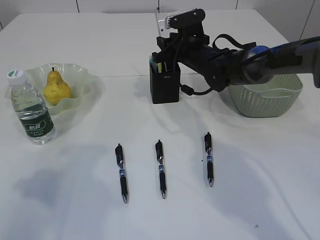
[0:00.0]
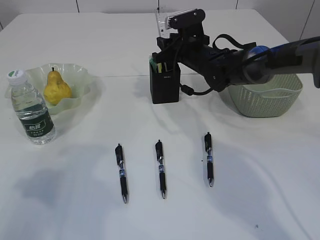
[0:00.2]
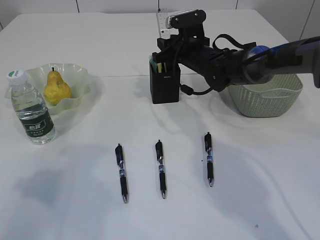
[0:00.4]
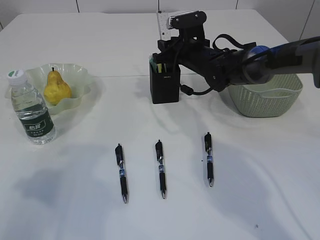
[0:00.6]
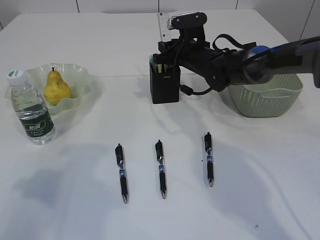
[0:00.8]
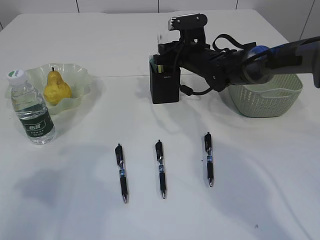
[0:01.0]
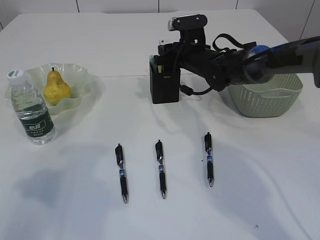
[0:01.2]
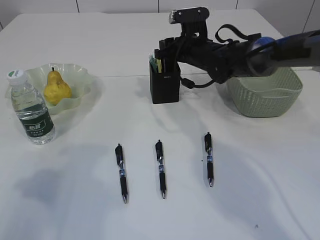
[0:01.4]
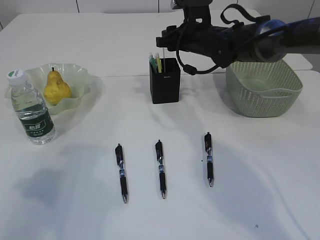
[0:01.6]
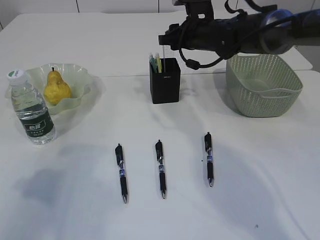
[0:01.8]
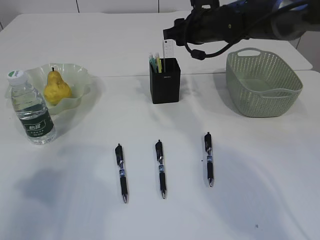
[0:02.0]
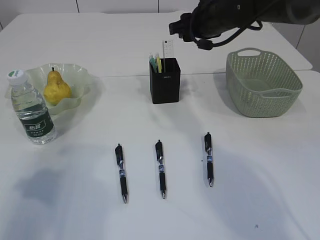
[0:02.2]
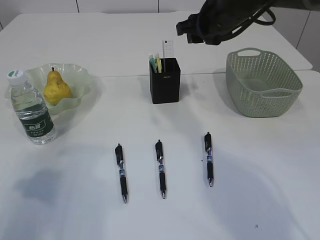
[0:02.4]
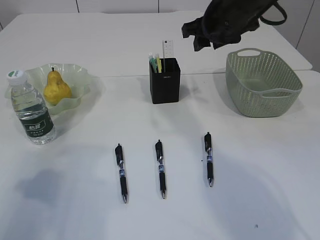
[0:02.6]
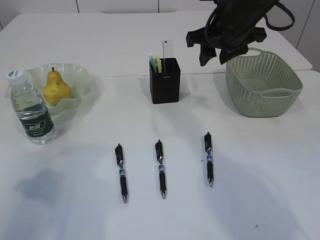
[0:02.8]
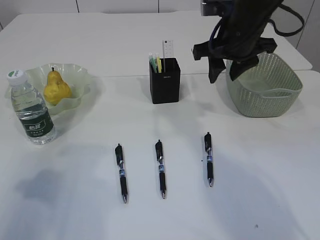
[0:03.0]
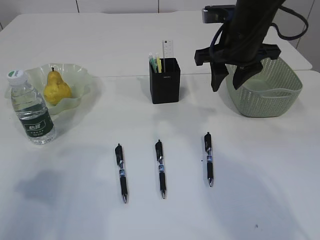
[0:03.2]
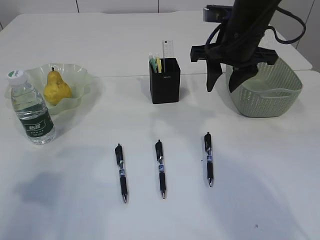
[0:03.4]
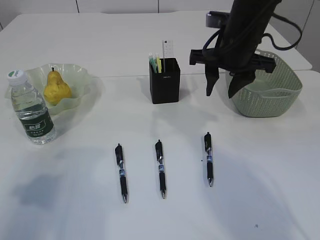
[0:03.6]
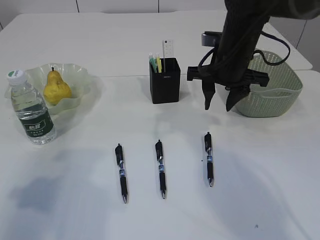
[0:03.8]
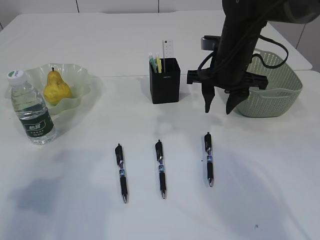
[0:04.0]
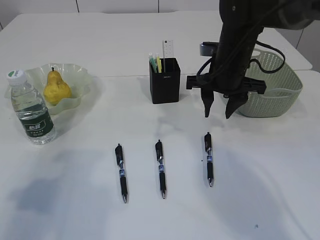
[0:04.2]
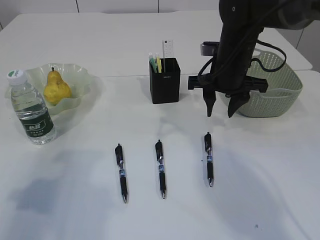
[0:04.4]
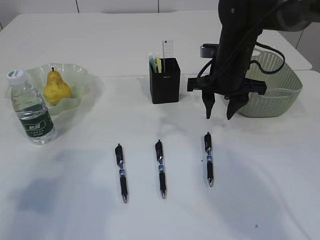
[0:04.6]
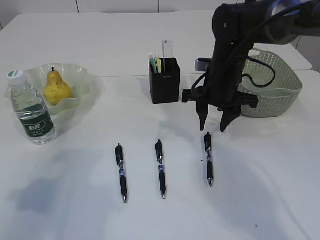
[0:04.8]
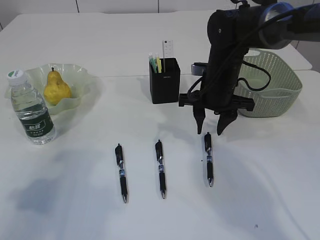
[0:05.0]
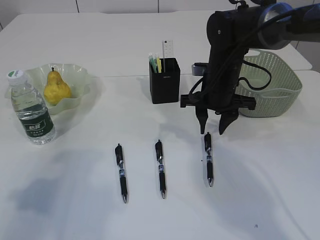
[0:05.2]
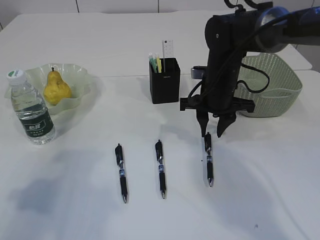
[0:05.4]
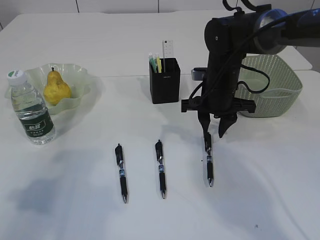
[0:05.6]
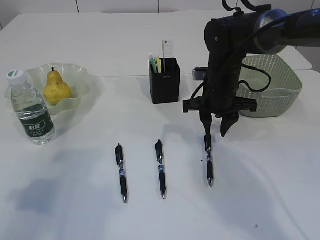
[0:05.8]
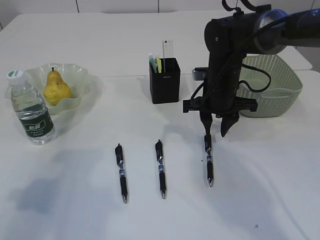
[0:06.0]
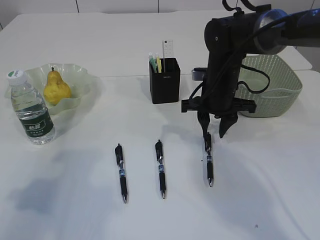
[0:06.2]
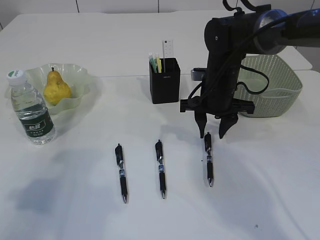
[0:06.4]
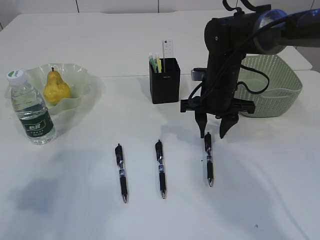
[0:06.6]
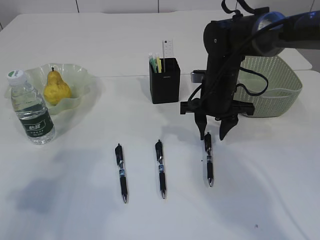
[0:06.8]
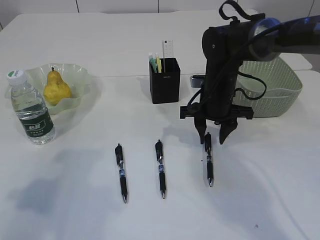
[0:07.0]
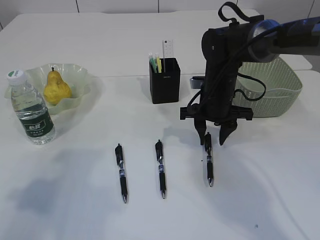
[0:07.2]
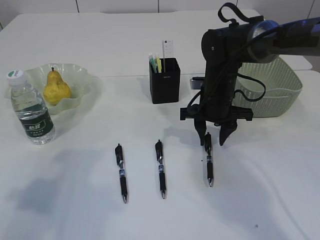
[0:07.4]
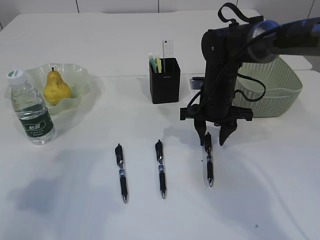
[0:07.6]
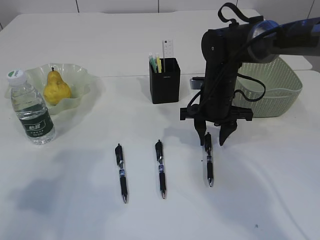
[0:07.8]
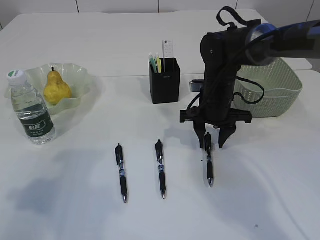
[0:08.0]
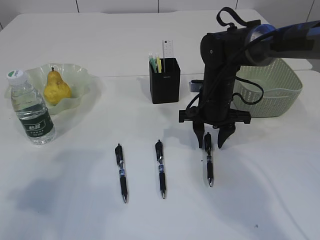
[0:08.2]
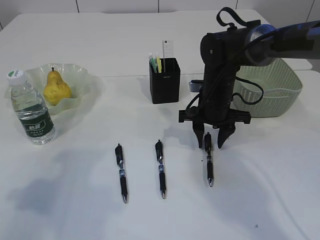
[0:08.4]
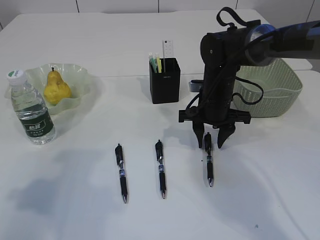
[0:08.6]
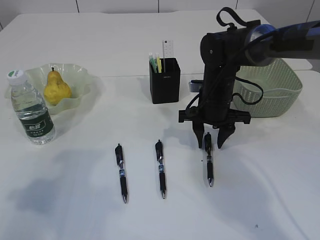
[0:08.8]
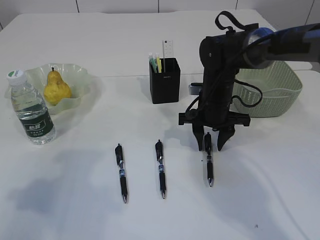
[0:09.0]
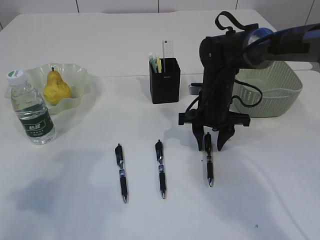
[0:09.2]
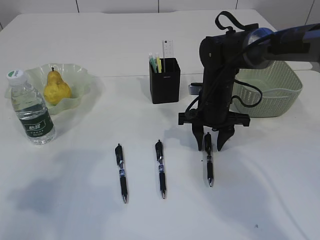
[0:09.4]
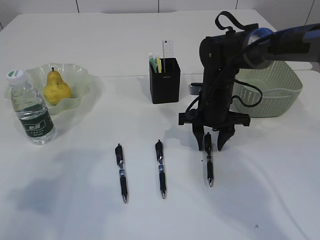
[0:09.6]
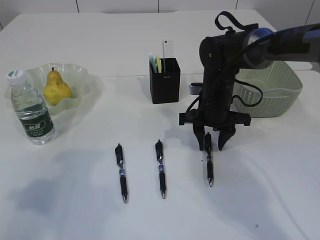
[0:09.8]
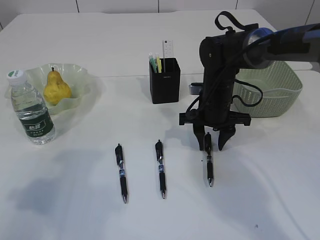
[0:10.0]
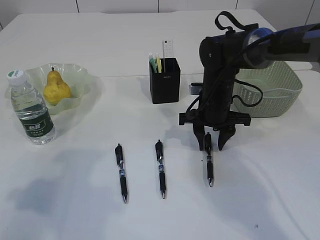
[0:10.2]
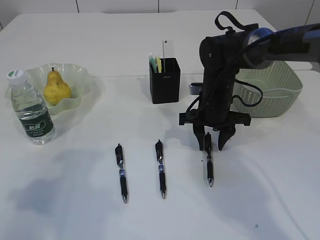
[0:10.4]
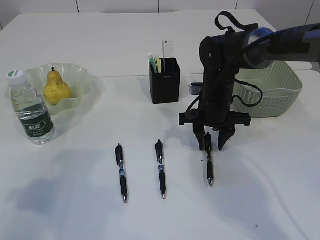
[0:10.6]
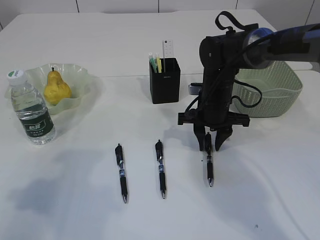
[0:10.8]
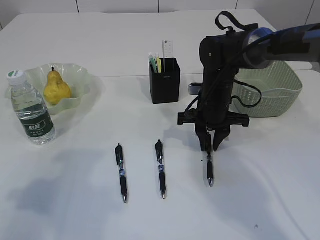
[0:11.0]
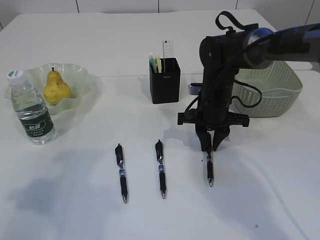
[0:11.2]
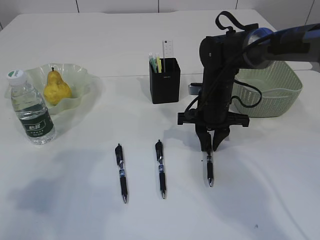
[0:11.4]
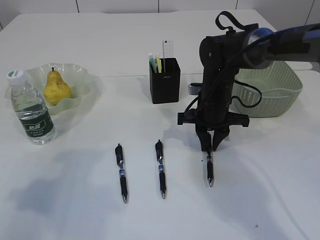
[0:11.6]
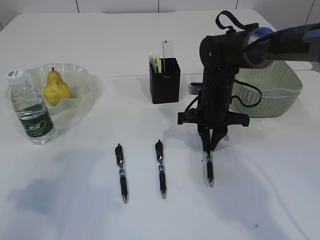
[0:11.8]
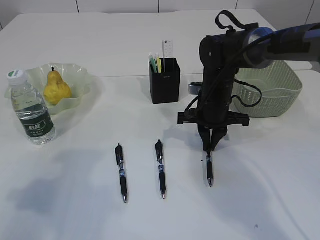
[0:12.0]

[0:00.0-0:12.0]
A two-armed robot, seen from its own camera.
Step, 0:00.0 to 0:02.4: Place the ruler into the pen holder.
0:00.0 to 0:01.6: The grippers move only a little.
0:01.6 to 0:03.0: The right gripper travels backward and upward by some 10 cm.
0:03.0 to 0:04.4: The right gripper travels downward by about 5 cm.
0:04.4 to 0:06.0: The right gripper goes approximately 5 cm downward.
0:06.0 to 0:07.6: The grippers make only small movements.
0:07.6 to 0:10.4: Both grippers stay put.
0:10.4 to 0:12.0: The right gripper closes its fingers.

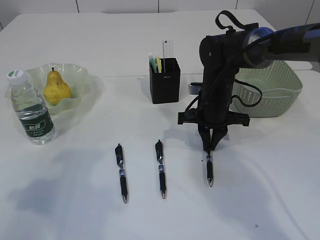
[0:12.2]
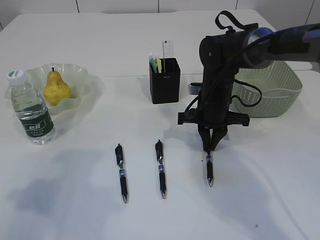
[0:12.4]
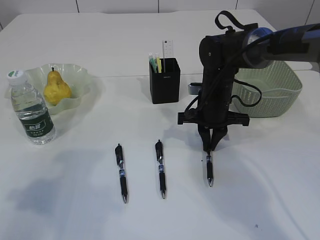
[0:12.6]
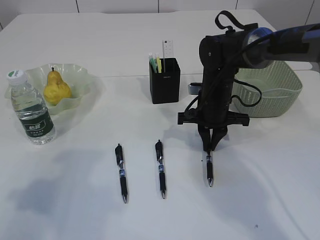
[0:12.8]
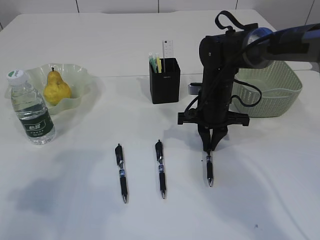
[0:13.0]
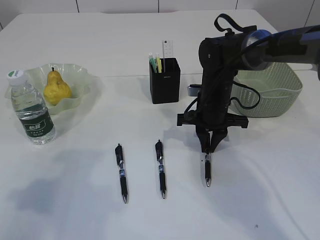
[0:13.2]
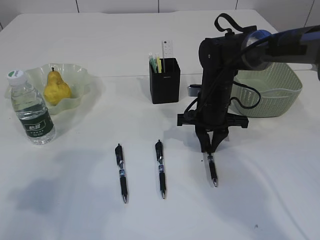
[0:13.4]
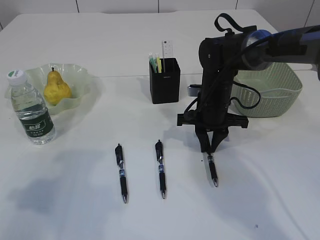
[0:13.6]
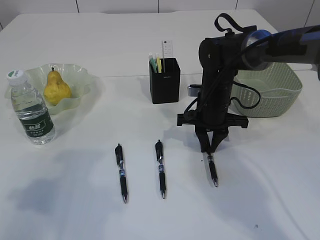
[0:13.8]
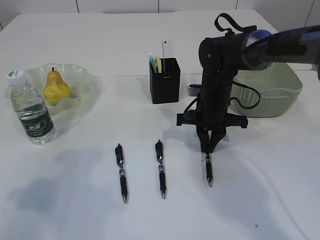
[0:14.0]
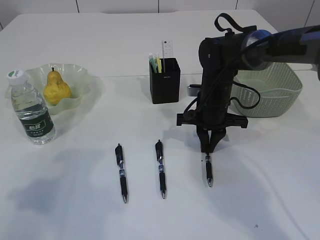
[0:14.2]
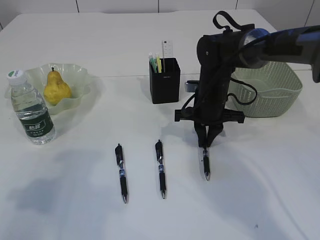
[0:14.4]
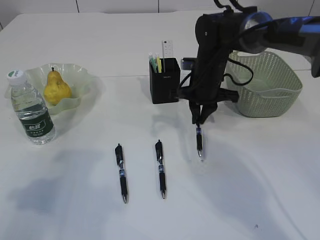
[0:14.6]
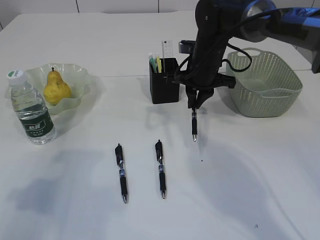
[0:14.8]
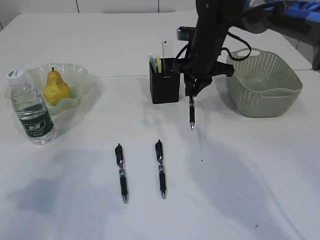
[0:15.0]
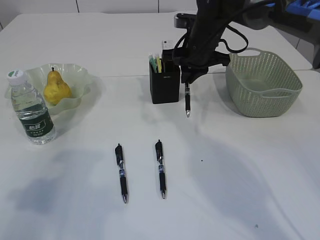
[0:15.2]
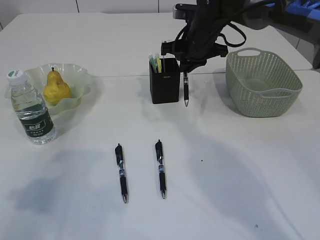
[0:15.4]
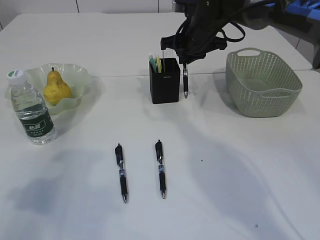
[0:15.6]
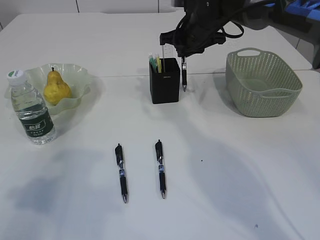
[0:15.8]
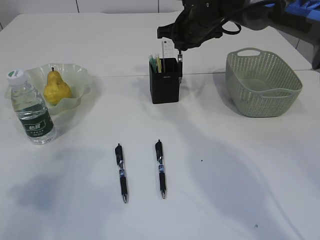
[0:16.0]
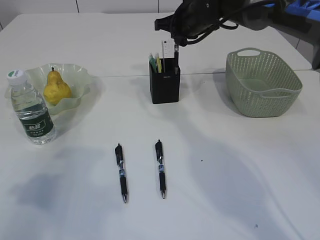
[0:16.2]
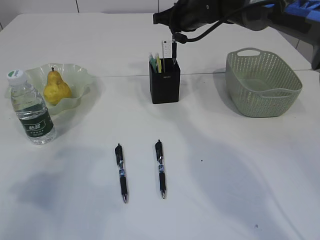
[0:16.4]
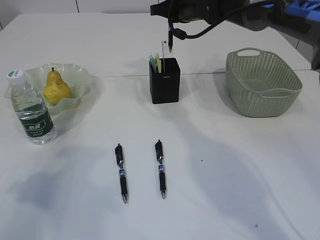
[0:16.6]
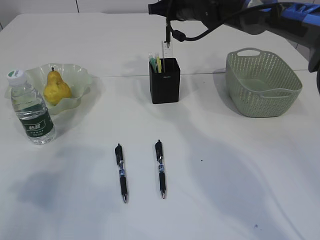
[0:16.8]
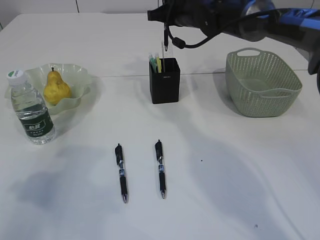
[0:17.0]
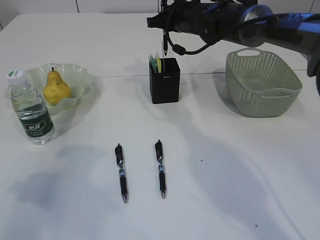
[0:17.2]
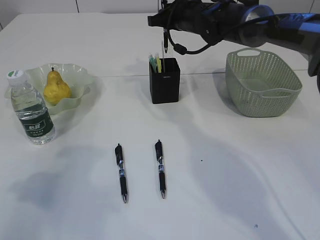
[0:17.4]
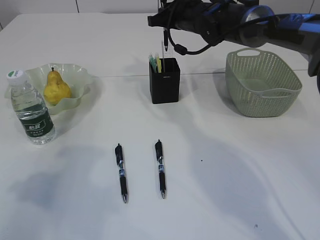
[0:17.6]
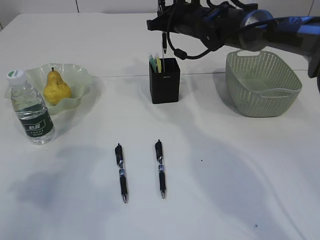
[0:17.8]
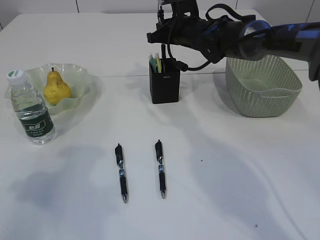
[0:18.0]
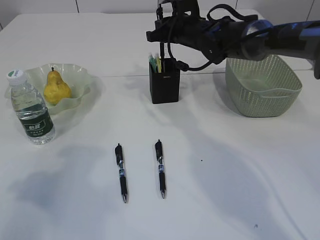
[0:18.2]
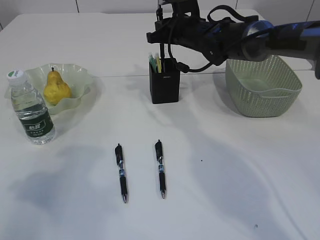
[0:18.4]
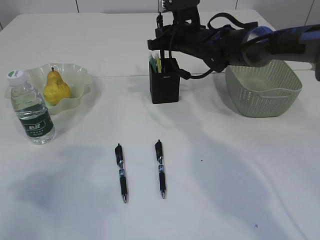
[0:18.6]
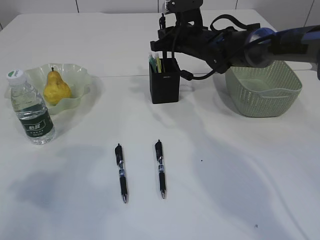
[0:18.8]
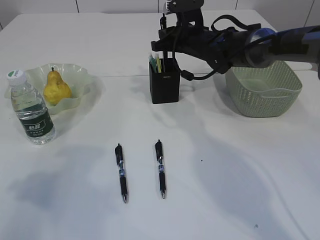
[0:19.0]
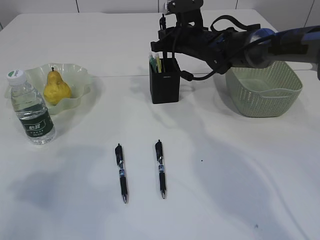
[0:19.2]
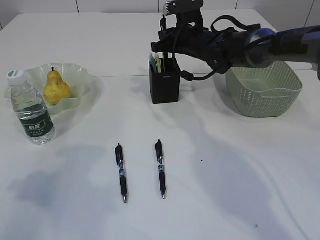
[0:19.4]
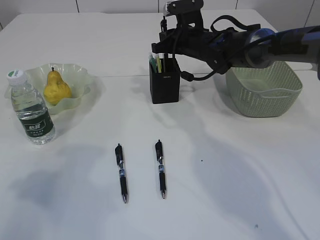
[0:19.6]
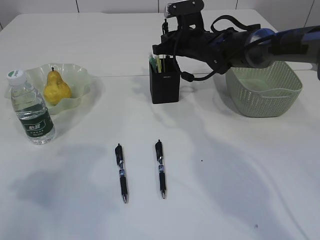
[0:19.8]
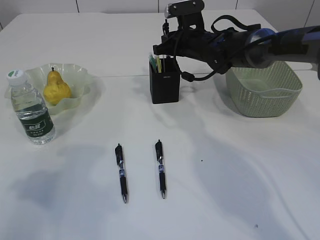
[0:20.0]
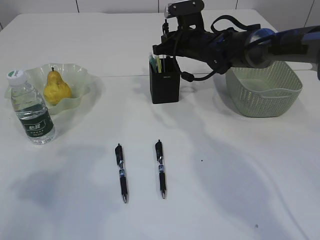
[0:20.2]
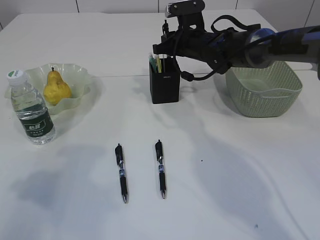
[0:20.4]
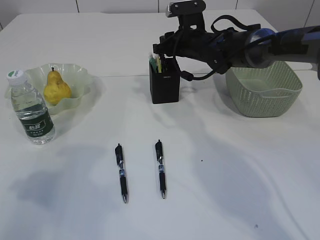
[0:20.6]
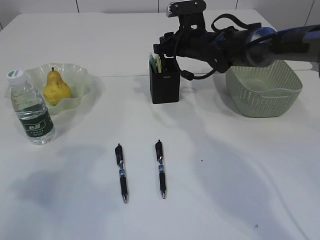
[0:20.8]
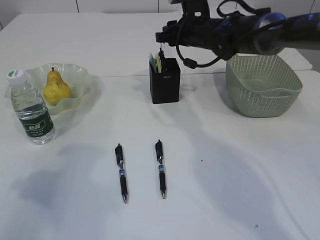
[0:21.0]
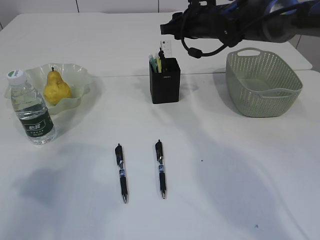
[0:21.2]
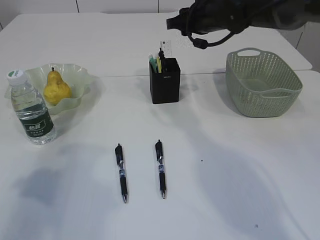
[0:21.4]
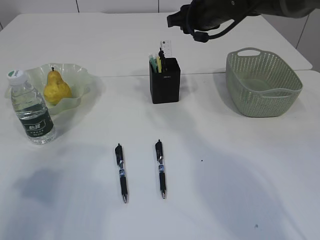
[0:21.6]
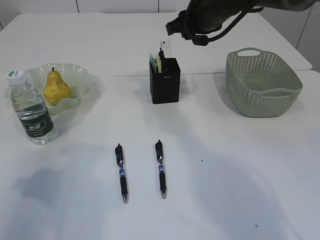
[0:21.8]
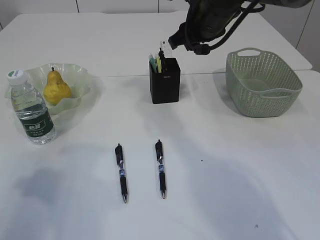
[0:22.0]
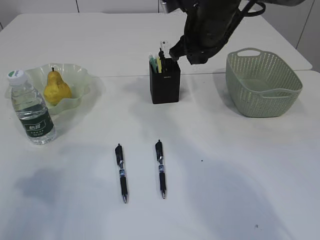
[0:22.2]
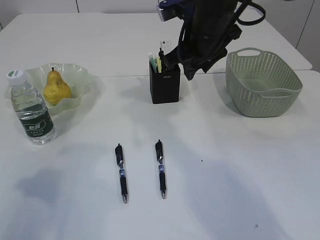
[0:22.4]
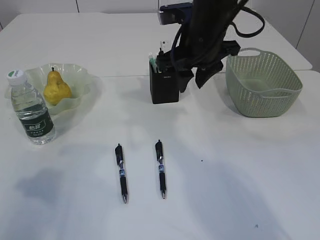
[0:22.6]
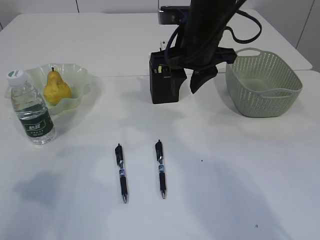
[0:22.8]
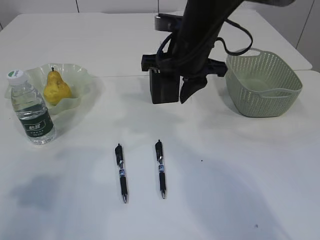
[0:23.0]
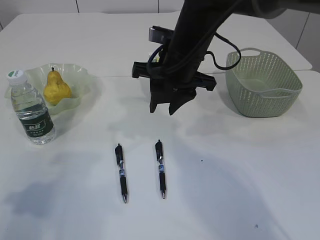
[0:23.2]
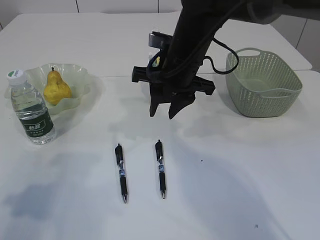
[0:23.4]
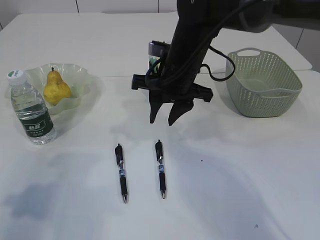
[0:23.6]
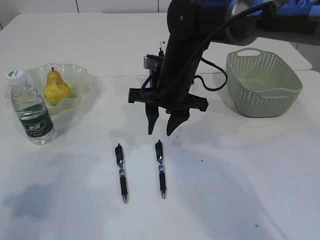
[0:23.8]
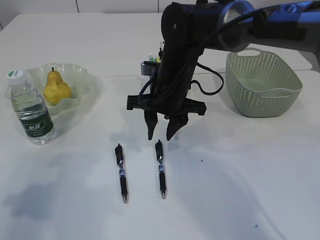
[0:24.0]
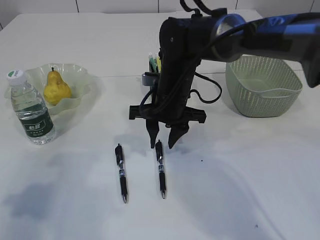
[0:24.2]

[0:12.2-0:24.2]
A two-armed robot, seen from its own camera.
Step, 0:12.2 to 0:15.0: Pick up the pen with right arm.
Step, 0:15.2 to 0:21.6: Place the pen into the pen holder.
0:12.2 to 0:13.8: Both grippers stay put.
0:13.8 to 0:15.2: The right gripper heads upward and forward, covering some 10 cm.
0:15.2 to 0:16.6: The right gripper changes place by some 5 cm.
0:16.6 to 0:18.2: The right gripper shifts about 5 cm downward.
0:18.2 to 0:19.8: The grippers make only small movements.
0:19.8 to 0:21.2: The right gripper ends up some 5 cm from where it was, and opens its fingers.
0:21.2 to 0:22.6: The right gripper heads backward, covering roughly 10 cm.
0:22.6 to 0:24.2: The right gripper goes roughly 10 cm downward.
